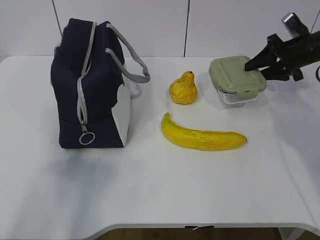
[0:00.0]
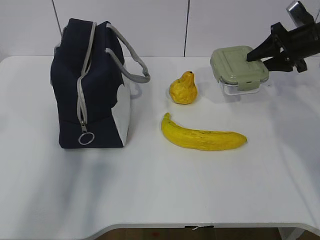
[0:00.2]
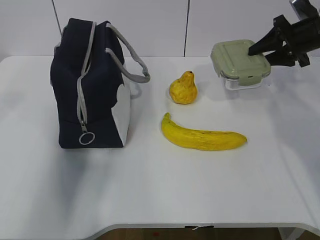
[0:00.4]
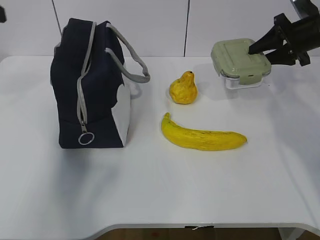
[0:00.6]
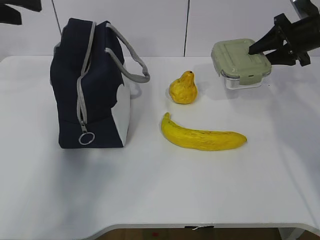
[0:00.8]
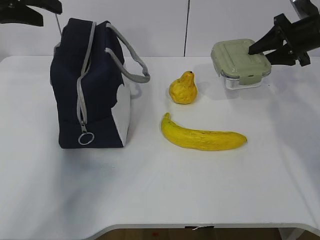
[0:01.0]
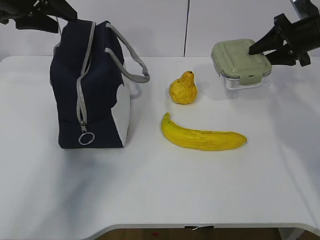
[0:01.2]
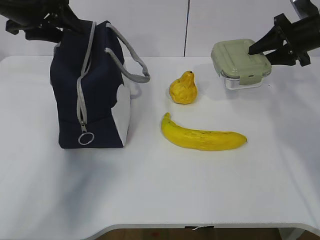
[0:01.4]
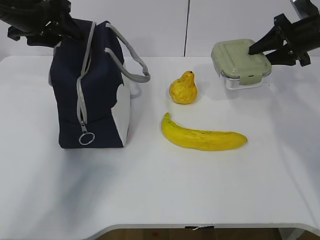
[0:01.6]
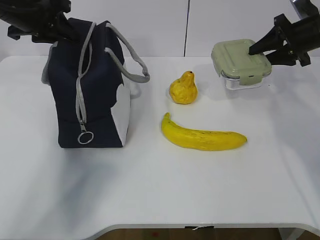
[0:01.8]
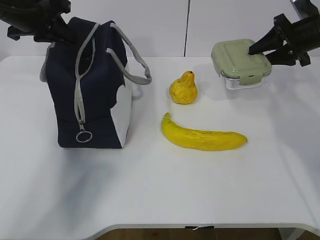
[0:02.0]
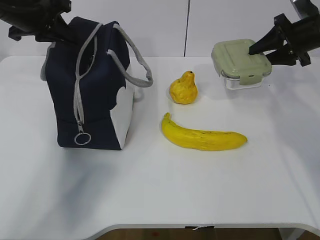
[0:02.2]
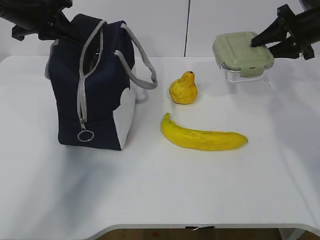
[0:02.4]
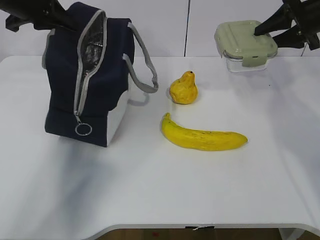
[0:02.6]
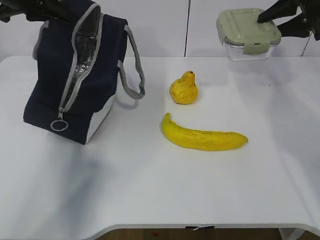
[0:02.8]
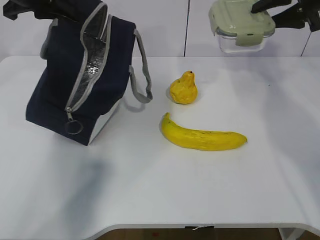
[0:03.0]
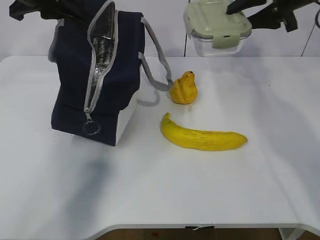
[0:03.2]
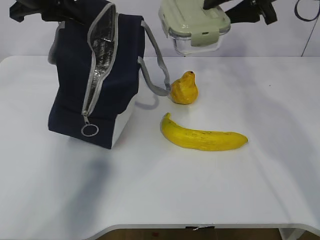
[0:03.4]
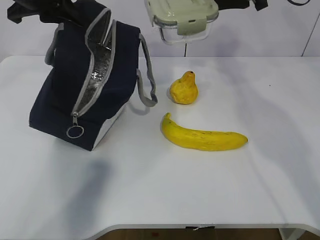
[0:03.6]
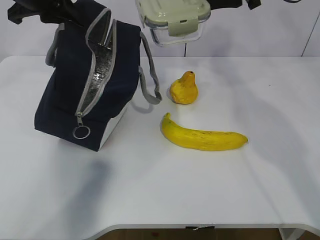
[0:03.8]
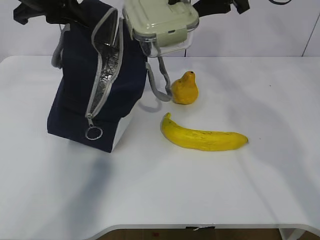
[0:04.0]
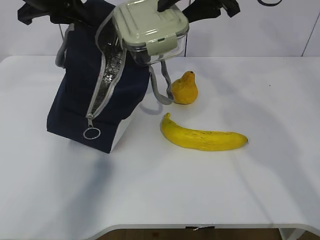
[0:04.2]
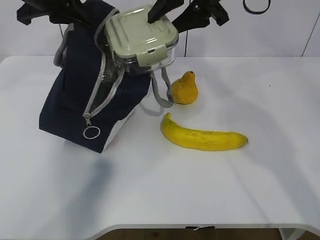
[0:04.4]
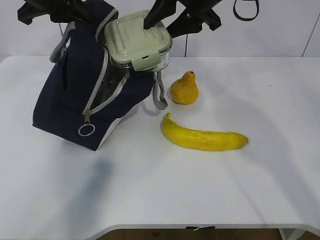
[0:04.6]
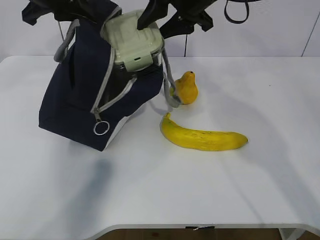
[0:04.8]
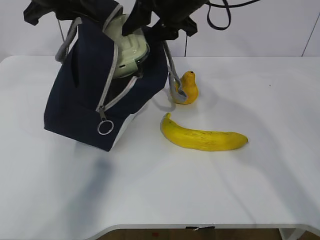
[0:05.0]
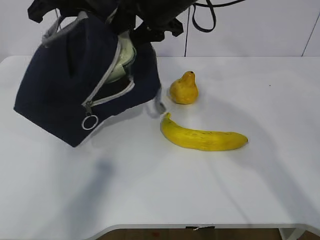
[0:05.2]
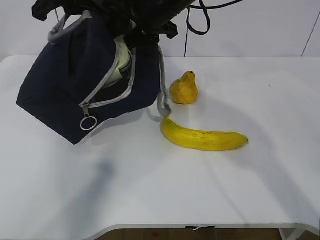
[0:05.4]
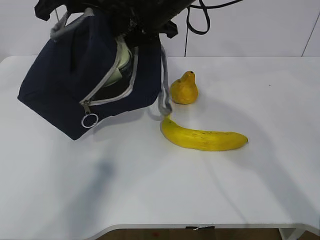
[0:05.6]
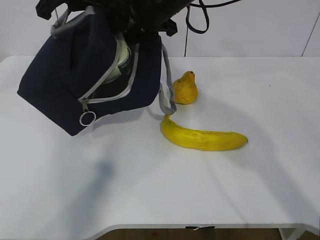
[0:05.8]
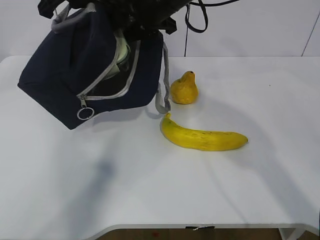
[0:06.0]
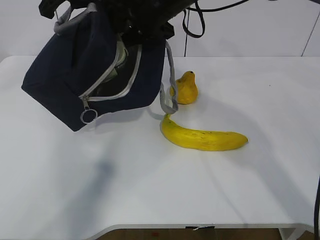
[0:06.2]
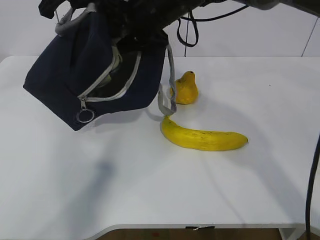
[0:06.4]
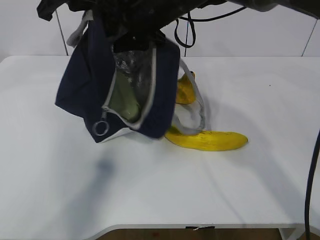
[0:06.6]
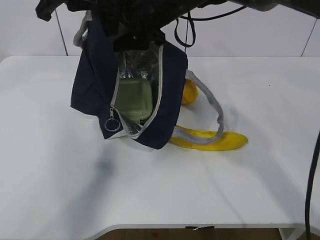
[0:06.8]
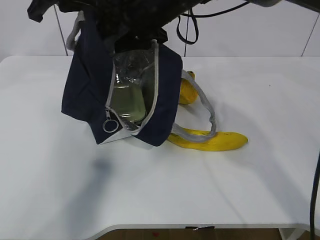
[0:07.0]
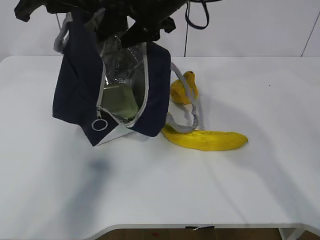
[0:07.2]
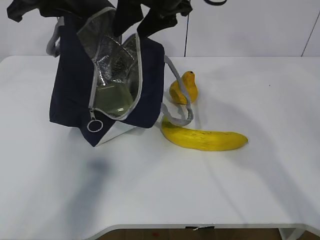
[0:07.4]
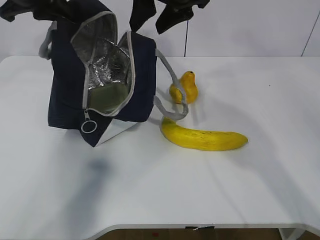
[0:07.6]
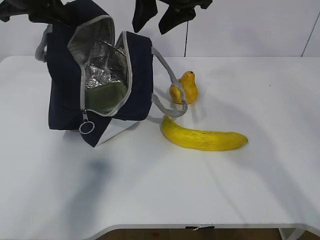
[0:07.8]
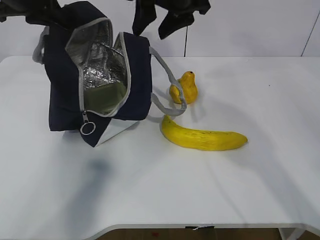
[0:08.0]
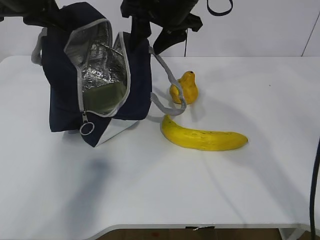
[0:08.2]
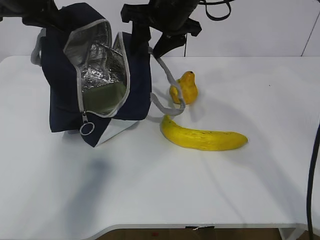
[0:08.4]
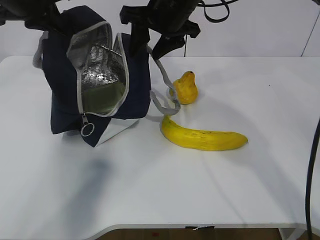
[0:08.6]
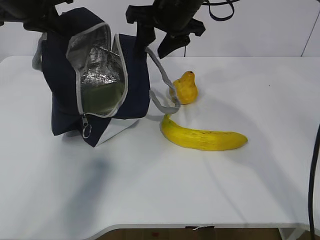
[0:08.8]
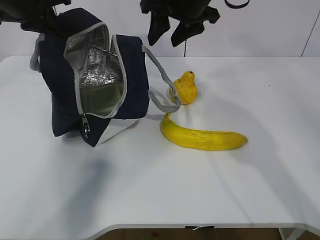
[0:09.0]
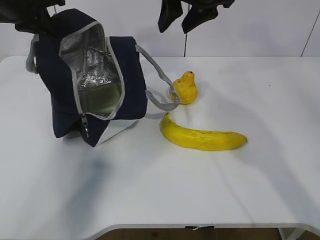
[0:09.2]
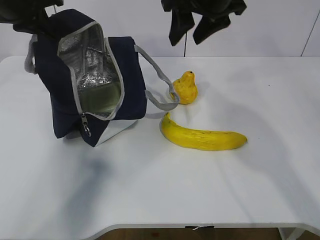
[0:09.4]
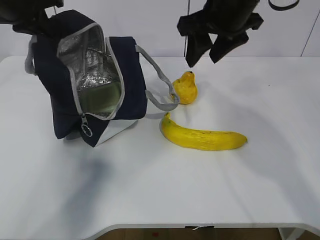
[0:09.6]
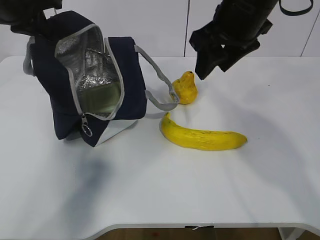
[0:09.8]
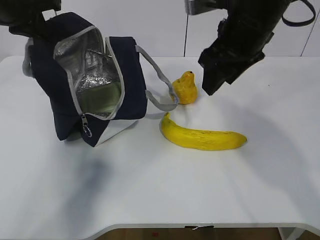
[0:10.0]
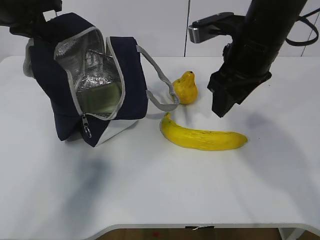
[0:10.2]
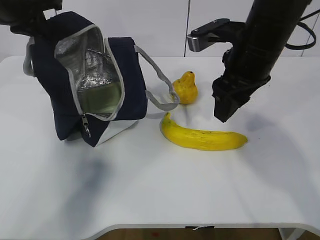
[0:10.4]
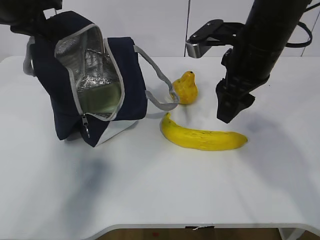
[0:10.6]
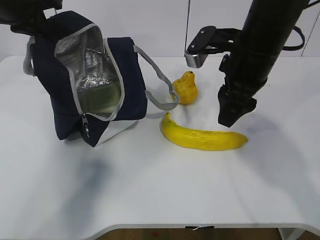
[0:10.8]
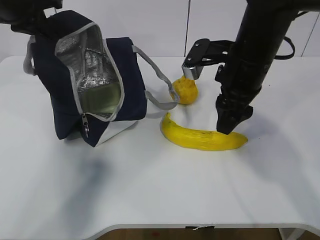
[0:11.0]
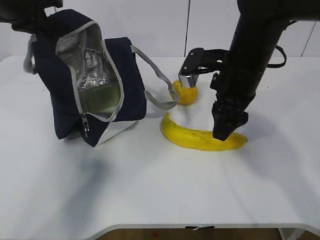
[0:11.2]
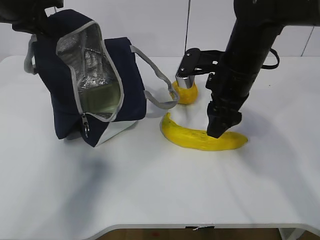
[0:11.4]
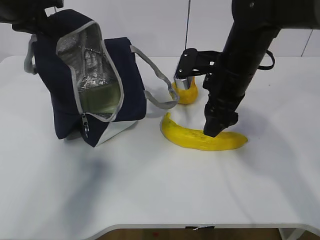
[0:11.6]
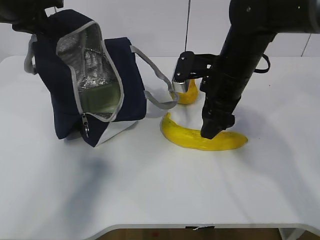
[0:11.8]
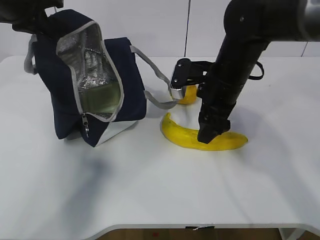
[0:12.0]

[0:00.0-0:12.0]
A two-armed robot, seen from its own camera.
Step, 0:00.0 to 0:02.0: Grasp the package with the left gripper.
Step, 0:02.2 to 0:07.2: Place the box into the package with the right gripper.
0:00.0 to 0:01.6: The left gripper travels forward by some 35 cm.
0:01.6 to 0:03.0: The right gripper shifts roughly 10 cm upward; the left gripper moves some 5 cm, and closes its fingers.
0:03.0 to 0:04.4: The right gripper shifts some 20 cm to the left.
0:04.4 to 0:06.0: The right gripper shifts roughly 10 cm to the left.
0:06.0 to 0:07.6: The left gripper shifts by roughly 5 cm.
0:07.6 to 0:09.0: The grippers move only a little.
0:09.0 to 0:10.4: The right gripper heads backward and to the right, covering some 10 cm.
0:10.4 to 0:12.0: The right gripper heads downward, covering roughly 5 cm.

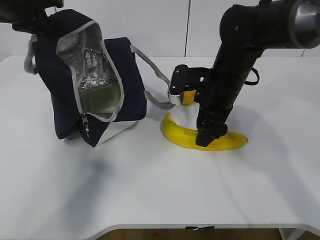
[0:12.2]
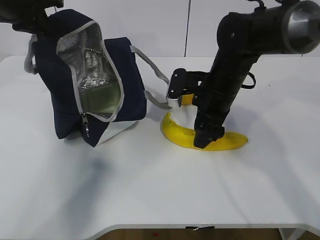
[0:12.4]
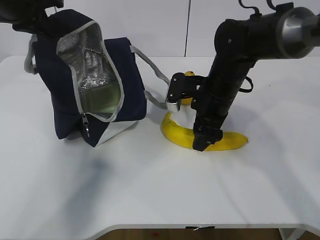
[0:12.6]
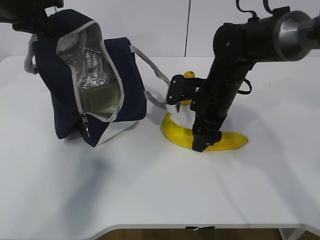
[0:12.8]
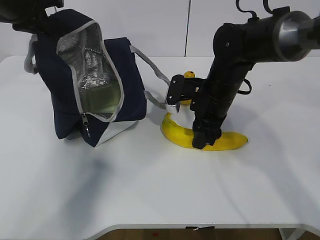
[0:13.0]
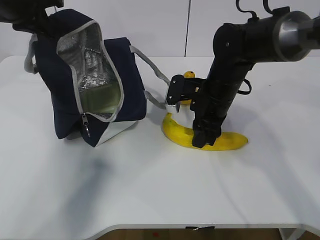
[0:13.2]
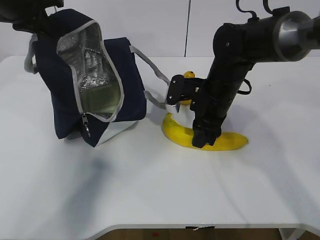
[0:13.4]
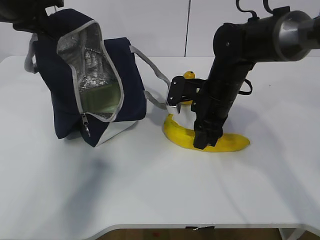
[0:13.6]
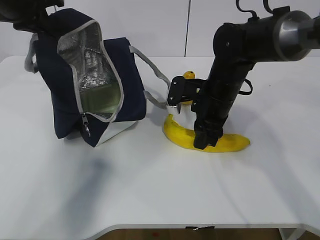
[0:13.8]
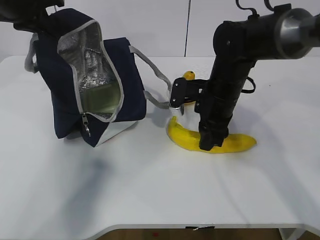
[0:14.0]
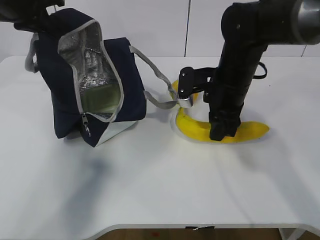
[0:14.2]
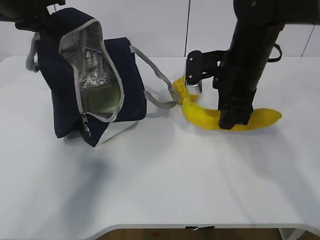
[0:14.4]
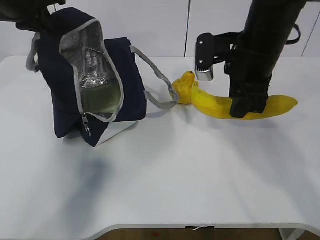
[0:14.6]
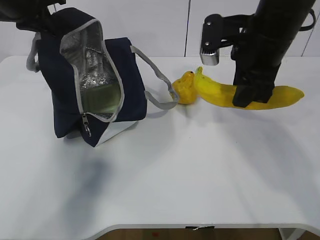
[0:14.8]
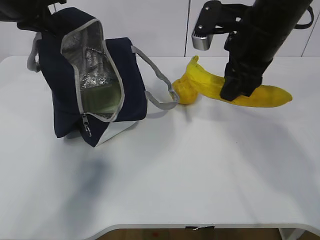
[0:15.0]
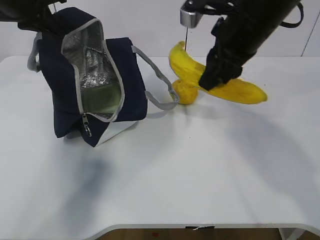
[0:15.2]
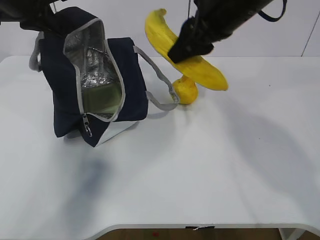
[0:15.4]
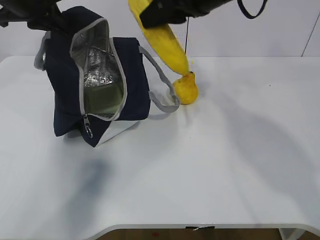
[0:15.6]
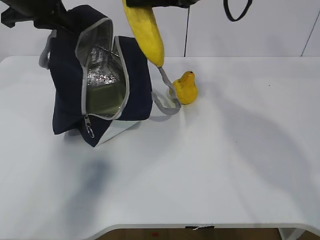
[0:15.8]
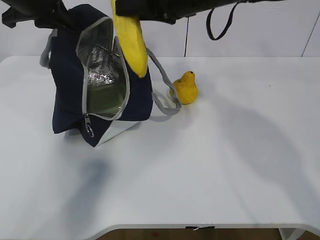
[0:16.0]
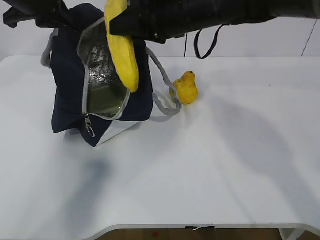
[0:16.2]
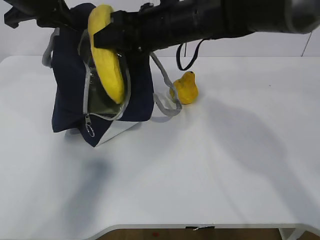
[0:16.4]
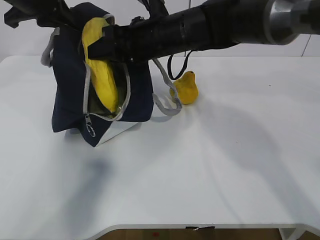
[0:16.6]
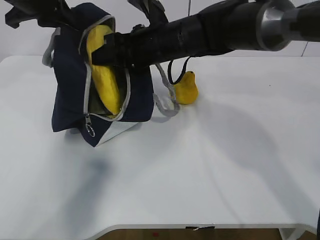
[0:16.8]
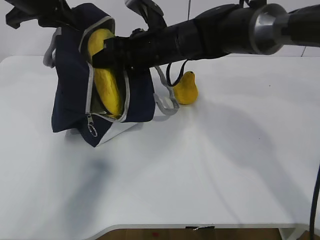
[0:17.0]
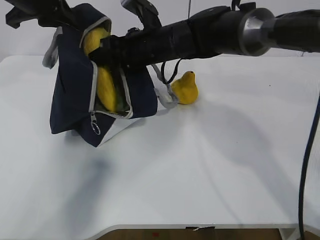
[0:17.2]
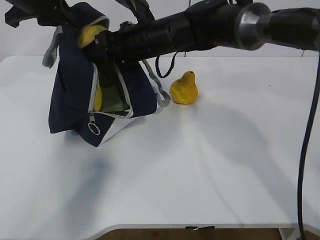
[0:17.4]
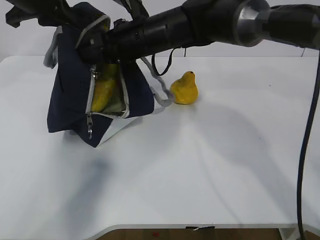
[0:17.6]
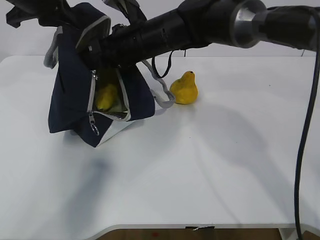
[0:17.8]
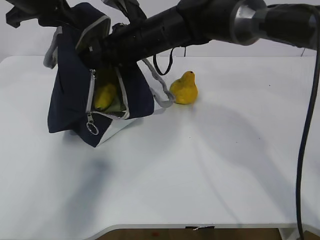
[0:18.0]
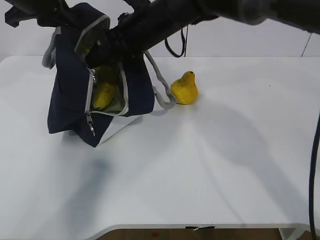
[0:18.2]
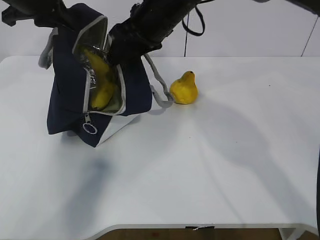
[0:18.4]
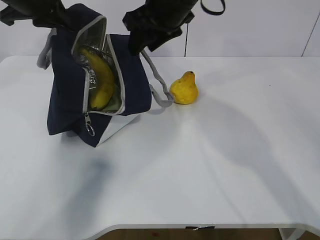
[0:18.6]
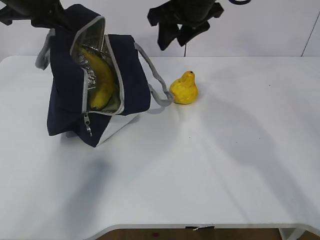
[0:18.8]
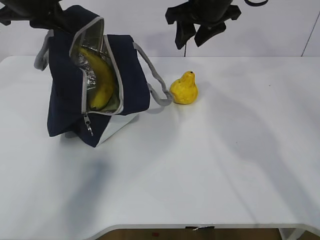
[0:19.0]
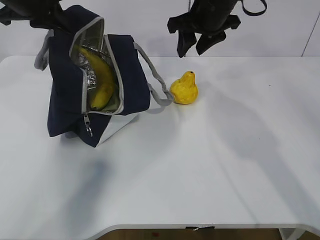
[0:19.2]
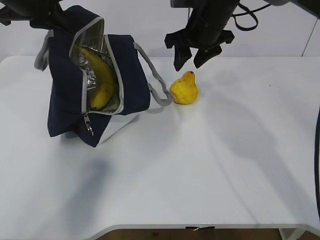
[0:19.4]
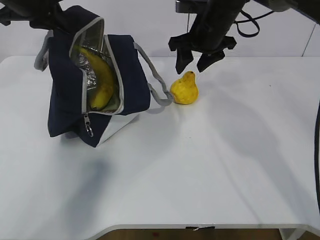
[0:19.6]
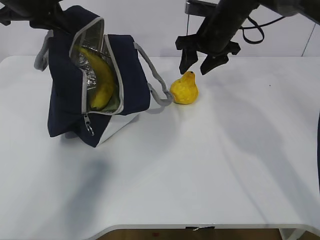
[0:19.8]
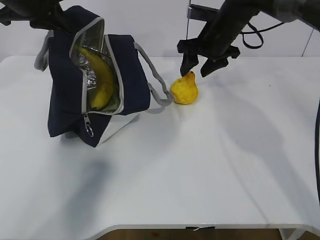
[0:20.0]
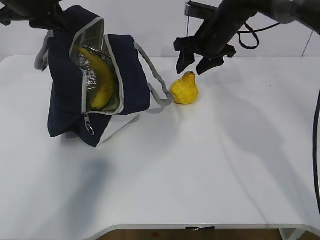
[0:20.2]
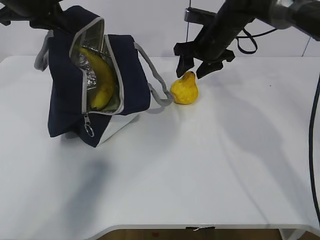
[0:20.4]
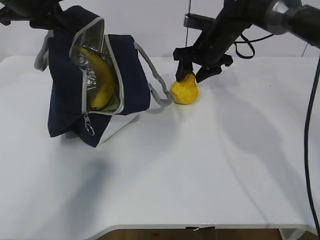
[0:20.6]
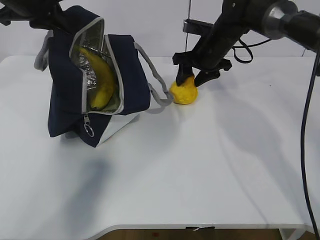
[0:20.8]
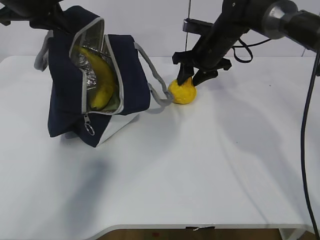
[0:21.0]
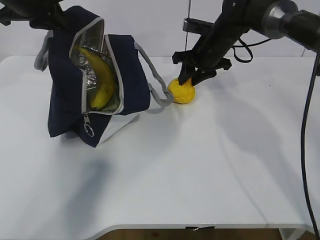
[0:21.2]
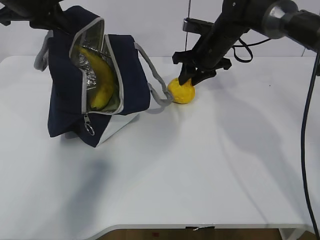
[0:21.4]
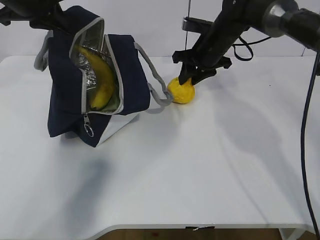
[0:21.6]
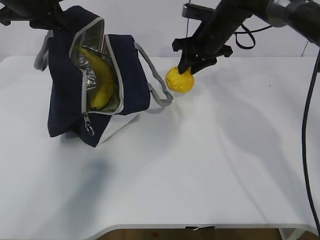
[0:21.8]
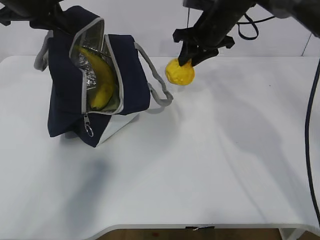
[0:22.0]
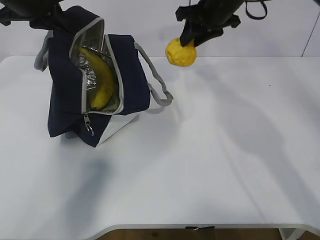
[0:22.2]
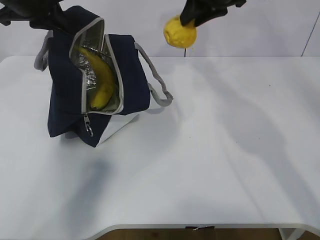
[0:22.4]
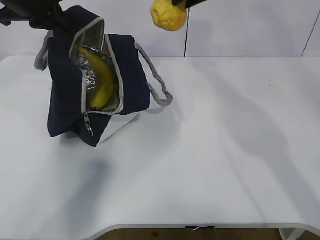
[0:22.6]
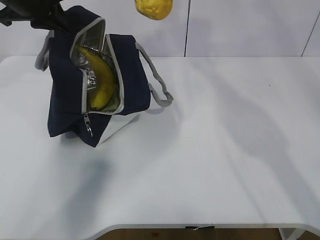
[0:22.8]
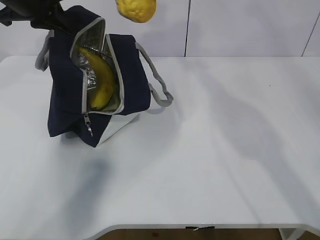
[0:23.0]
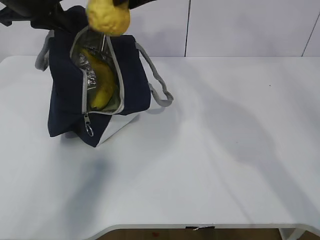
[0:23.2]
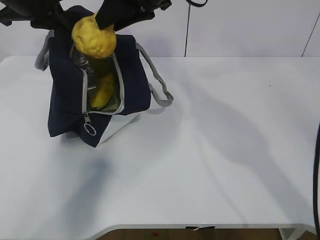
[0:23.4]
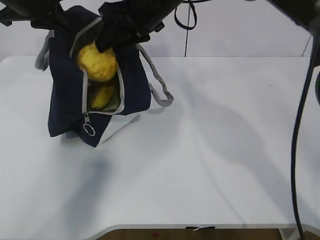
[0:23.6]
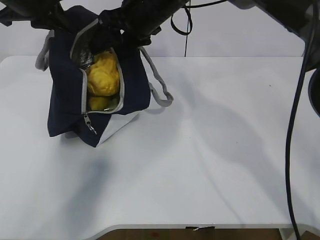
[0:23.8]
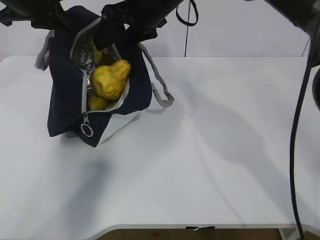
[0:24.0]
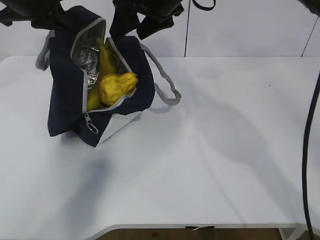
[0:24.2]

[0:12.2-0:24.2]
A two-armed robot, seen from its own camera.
Step, 0:14.0 to 0:17.8: Place the banana into the package with the right gripper.
Step, 0:18.0 to 0:21.2: Grasp the pear with the right gripper.
Step, 0:21.4 to 0:24.0: Place the pear into the package with the right gripper.
0:12.2 to 0:13.8: The right gripper closes.
0:13.8 to 0:15.2: The right gripper is displaced upward by about 15 cm.
0:15.2 to 0:16.6: The right gripper is displaced to the left and forward by about 10 cm.
0:16.6 to 0:18.2: The grippers make only small movements.
0:18.2 to 0:19.8: The right gripper heads to the right and forward, covering approximately 15 cm.
0:19.8 to 0:21.2: The right gripper heads downward, covering some 5 cm.
0:21.2 to 0:22.6: The right gripper travels upward by some 15 cm.
0:22.6 to 0:24.2: The right gripper moves to the left, roughly 10 cm, and opens up.
